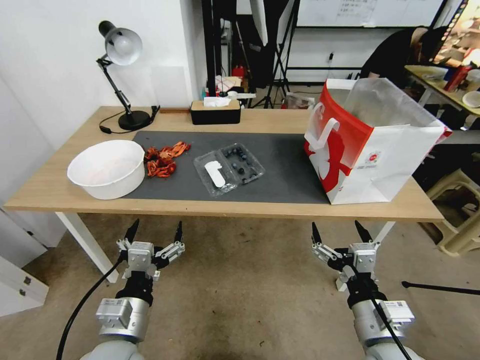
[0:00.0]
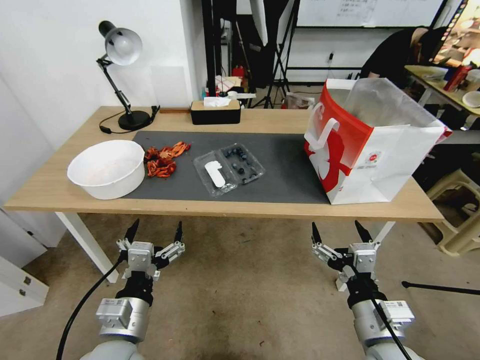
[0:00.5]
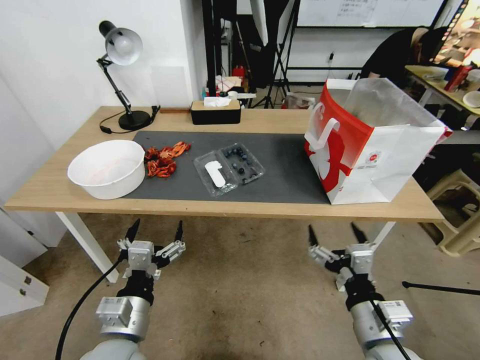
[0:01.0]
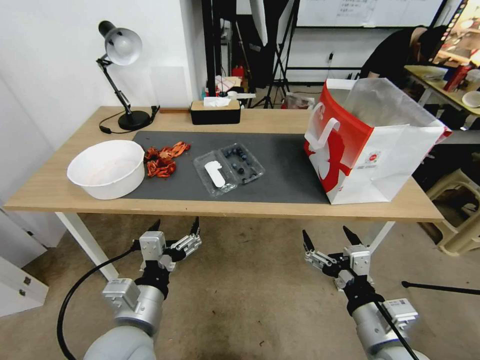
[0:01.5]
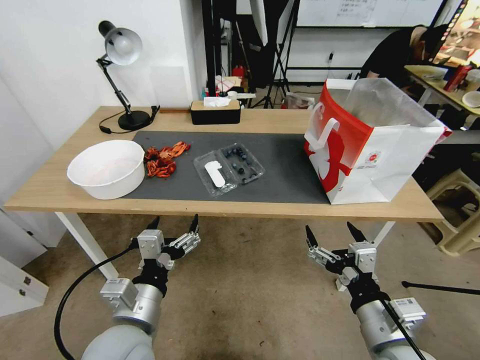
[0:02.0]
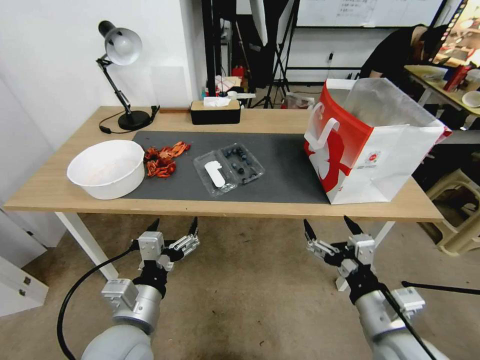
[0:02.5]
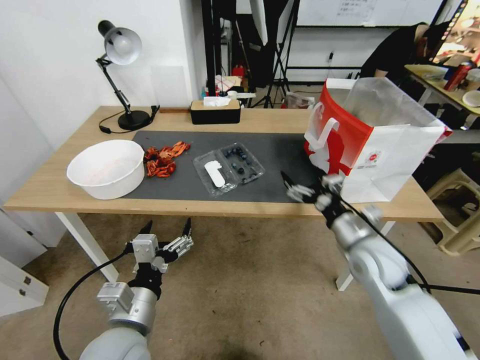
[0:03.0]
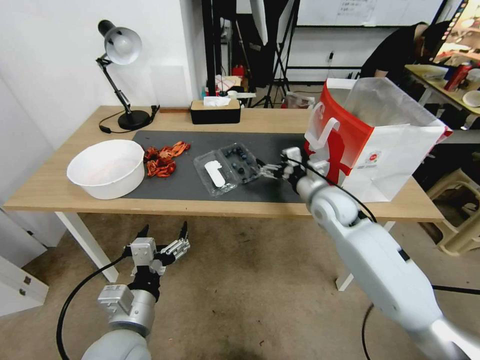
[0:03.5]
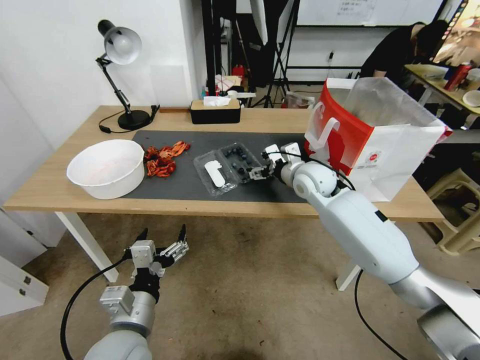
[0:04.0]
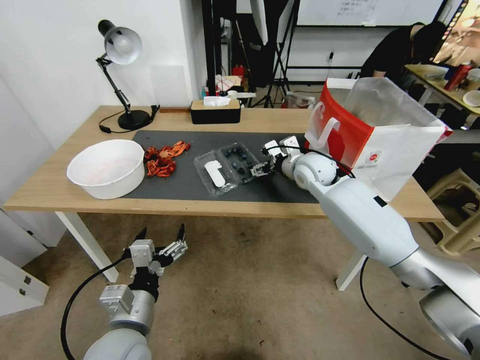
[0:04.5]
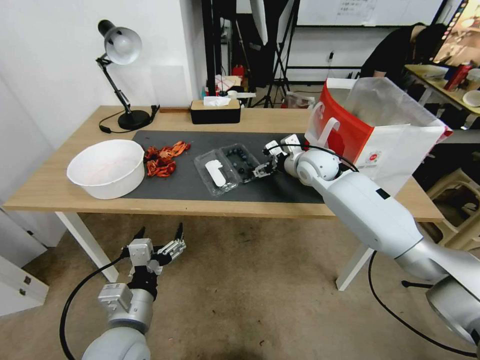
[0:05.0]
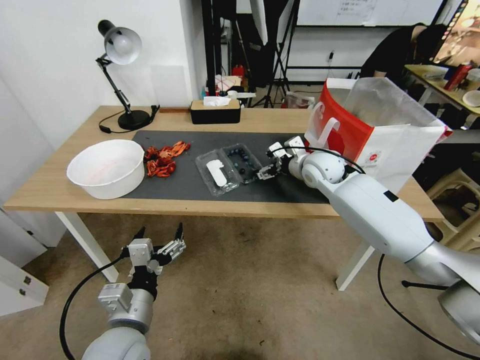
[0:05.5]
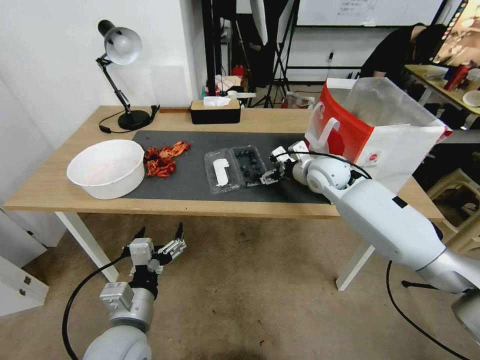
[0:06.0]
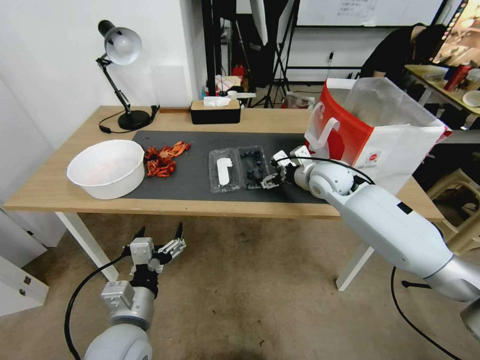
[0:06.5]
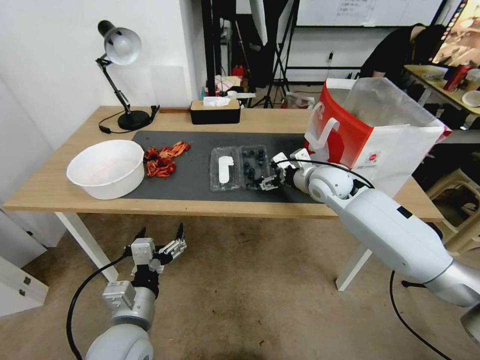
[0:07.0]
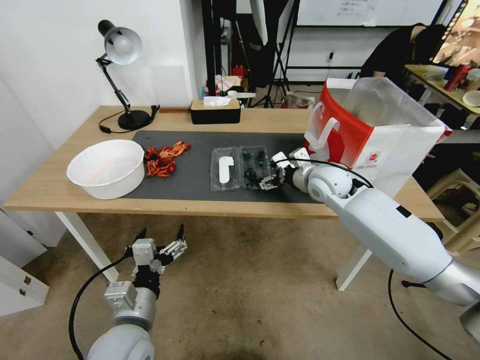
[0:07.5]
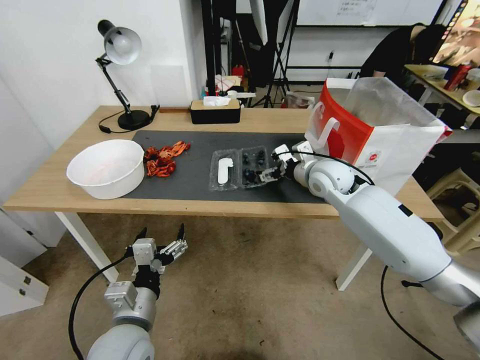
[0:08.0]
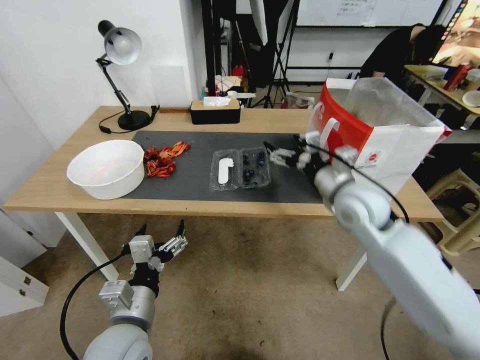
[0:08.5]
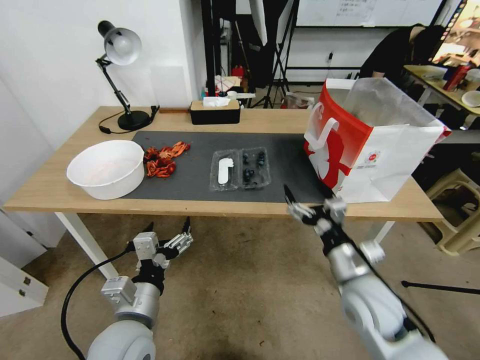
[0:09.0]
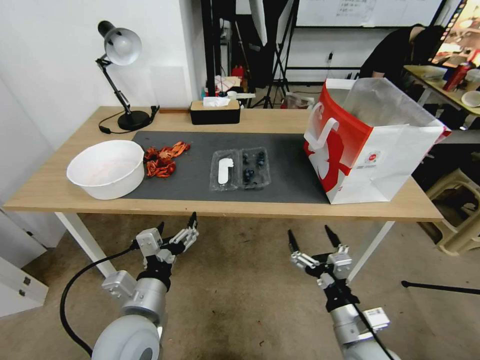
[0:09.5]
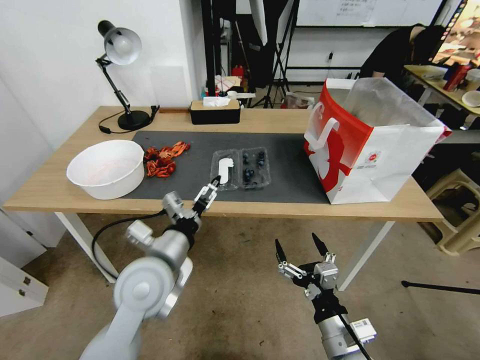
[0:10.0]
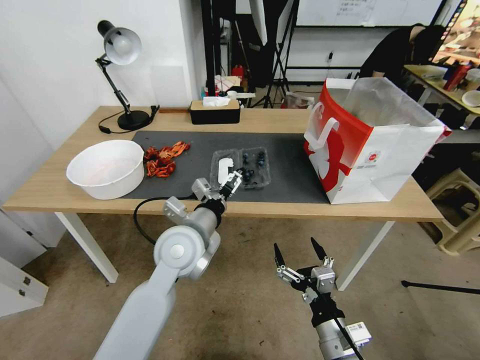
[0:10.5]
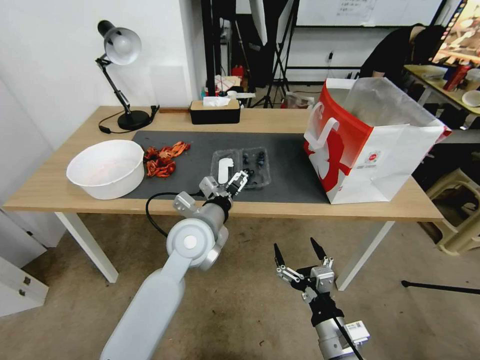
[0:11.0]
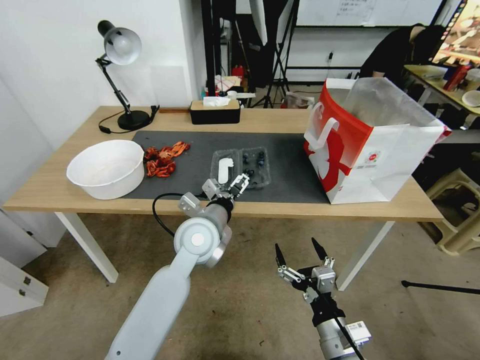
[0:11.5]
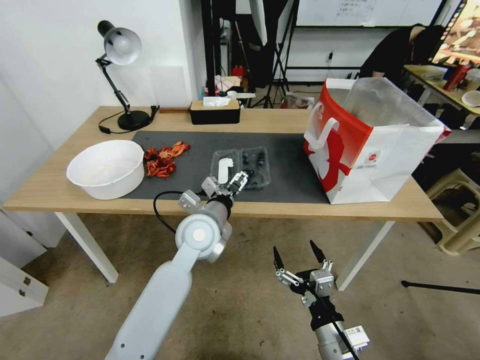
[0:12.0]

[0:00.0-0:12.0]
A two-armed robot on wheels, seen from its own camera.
Task of the whole recording: Close the takeout container lid, then place the container into the takeout bag.
0:02.0 to 0:04.0: The right gripper travels forward by about 35 cm.
0:04.0 to 0:08.0: The grippers move only a little.
0:08.0 to 0:10.0: The right gripper travels backward and downward by some 40 cm. The left gripper shifts roughly 10 cm forward and upward.
0:10.0 to 0:12.0: The left gripper moves forward and to the right, roughly 15 cm.

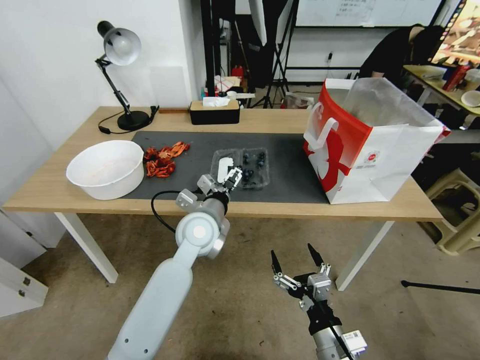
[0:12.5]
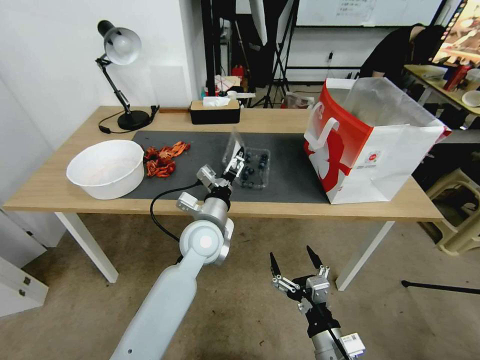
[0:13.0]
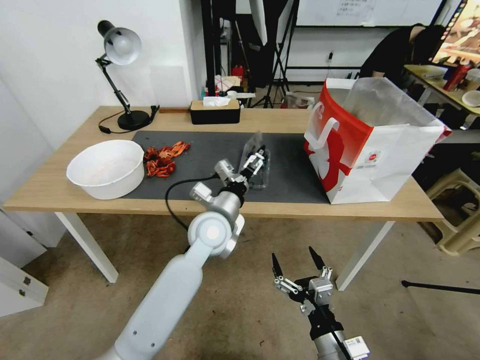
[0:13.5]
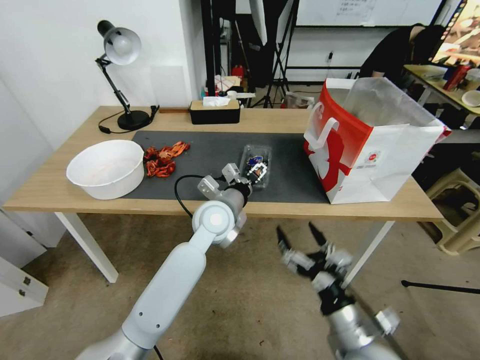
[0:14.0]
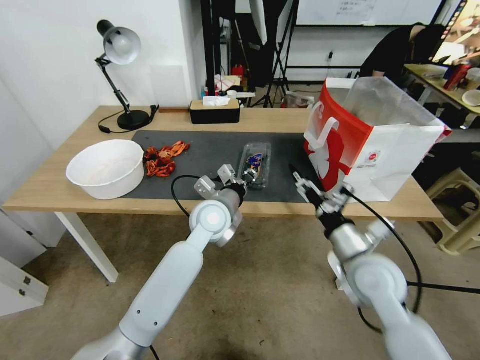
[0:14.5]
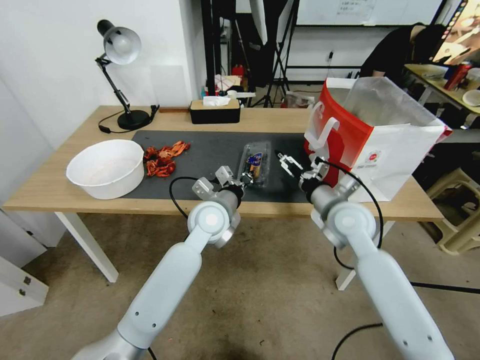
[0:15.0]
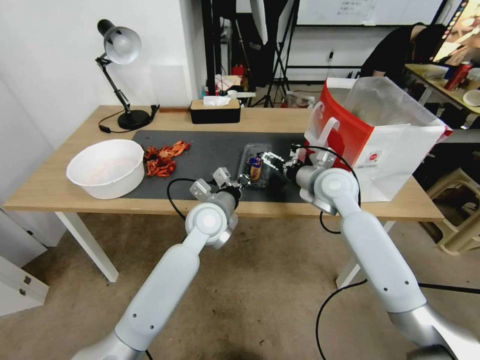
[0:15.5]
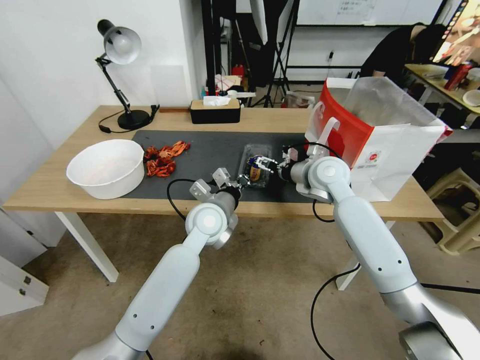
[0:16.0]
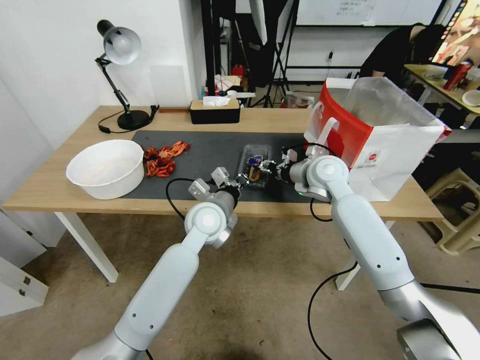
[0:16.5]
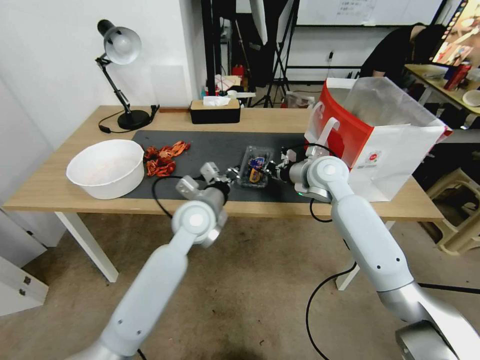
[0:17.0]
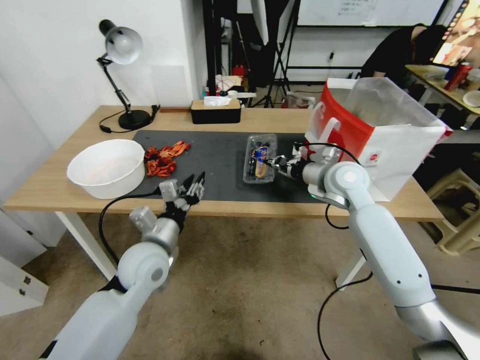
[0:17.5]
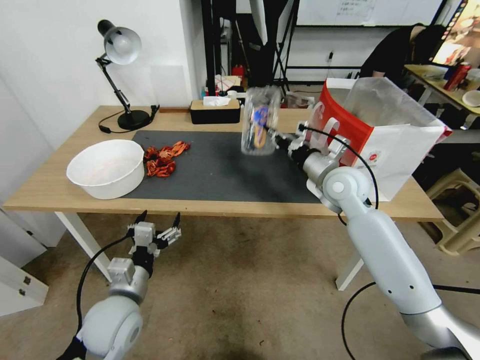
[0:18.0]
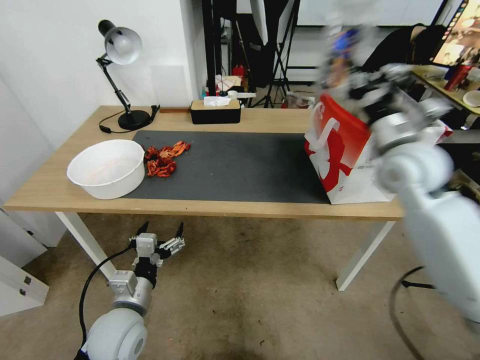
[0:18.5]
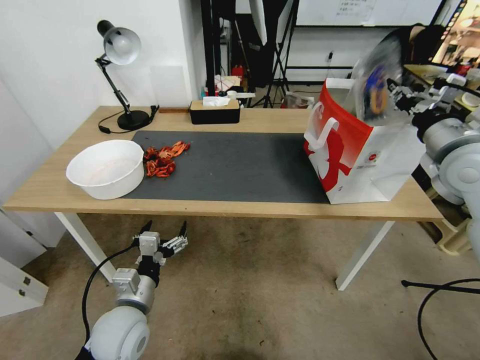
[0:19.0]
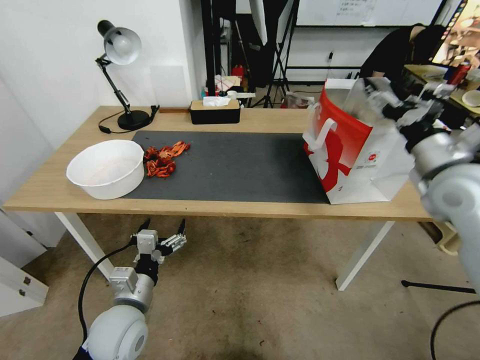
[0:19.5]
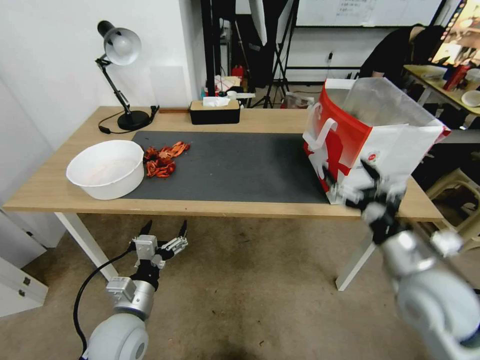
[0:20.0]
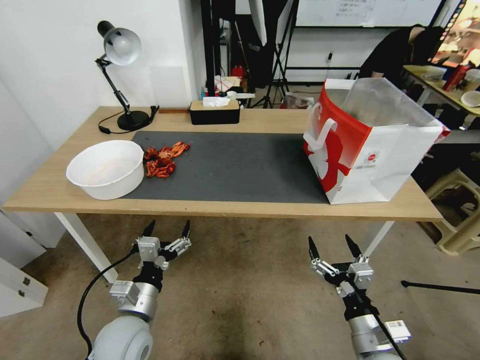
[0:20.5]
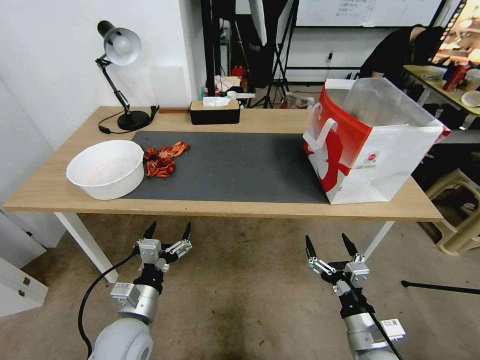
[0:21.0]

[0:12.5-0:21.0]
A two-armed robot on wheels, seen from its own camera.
Task of the whole recording: Close the takeout container lid, then place the container into the takeout bag.
0:12.5 to 0:14.5: The right gripper travels forward and upward by some 20 cm, while the left gripper closes up.
0:14.5 to 0:16.5: The right gripper heads forward, covering approximately 20 cm, and closes its fingers.
0:16.5 to 0:19.0: The right gripper moves to the right, upward and backward, about 25 cm, while the left gripper goes approximately 25 cm backward, to the left and downward, and opens up.
0:19.0 to 0:21.0: The right gripper shifts approximately 40 cm downward and backward, and opens its fingers.
